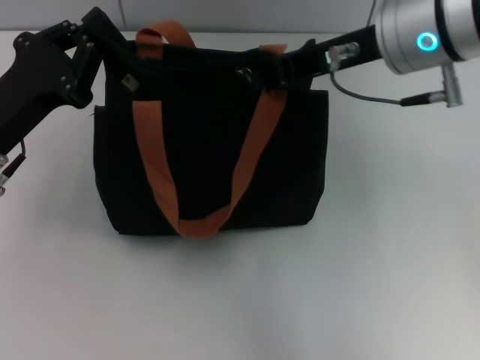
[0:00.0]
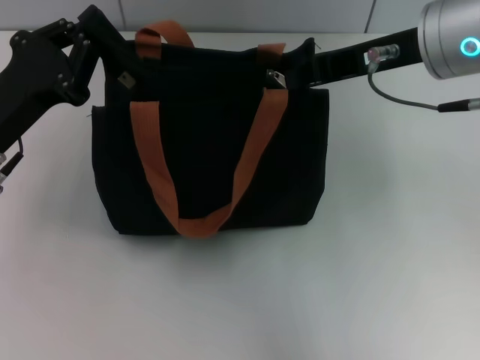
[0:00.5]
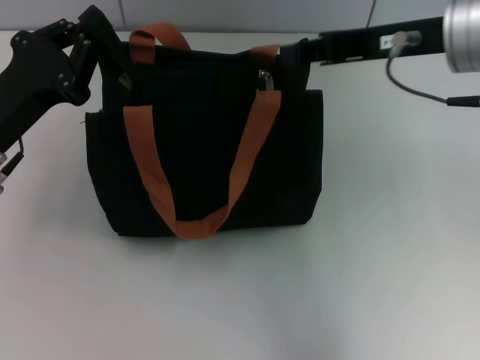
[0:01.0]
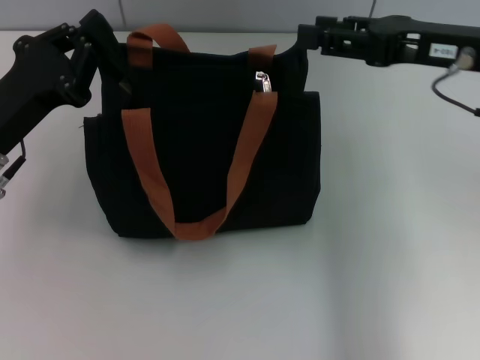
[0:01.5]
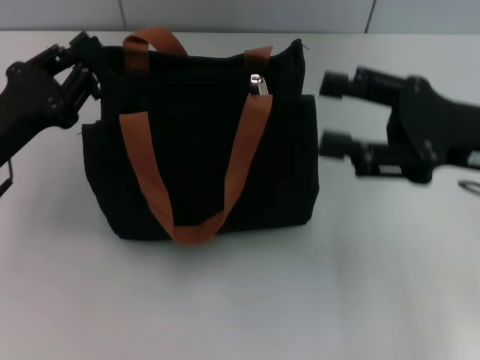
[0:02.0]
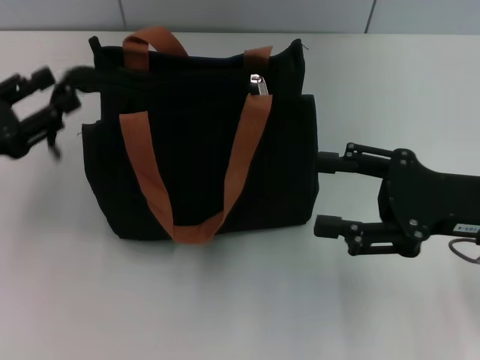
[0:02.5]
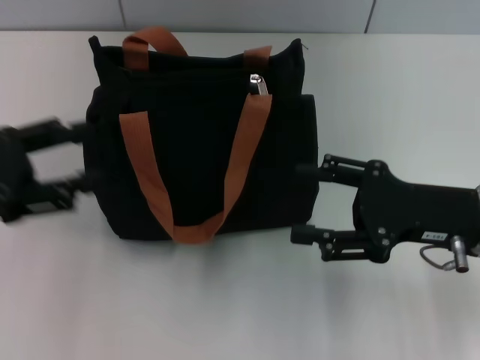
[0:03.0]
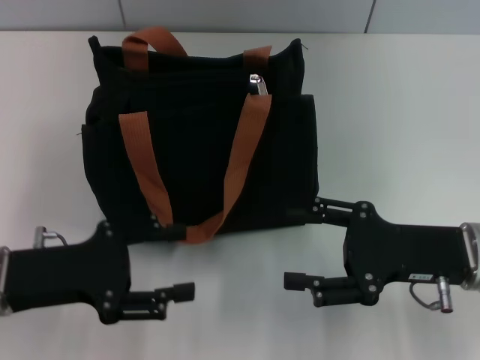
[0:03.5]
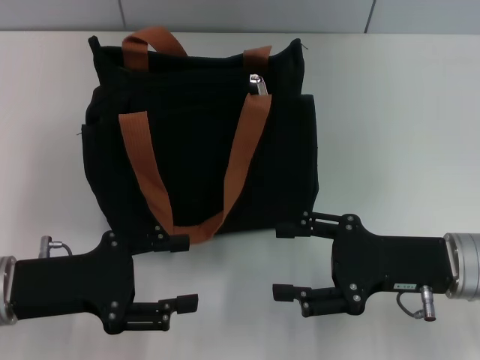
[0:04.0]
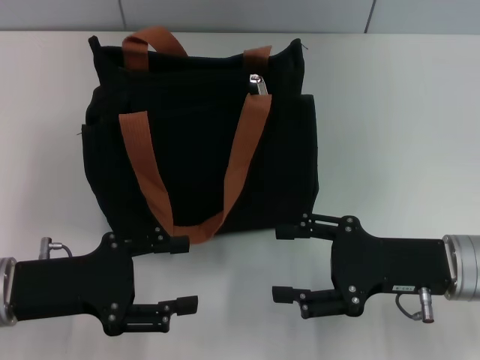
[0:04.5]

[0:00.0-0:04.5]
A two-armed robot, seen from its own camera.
Step, 0:01.5 to 0:02.5: Grab the zipper with your left hand.
0:00.0 to 0:02.0: The right gripper is displaced to the right, downward and backward by approximately 15 cm, and opens.
0:02.0 to 0:04.5: The right gripper moves downward, about 10 cm. Meanwhile the left gripper goes about 5 cm backward, and opens up.

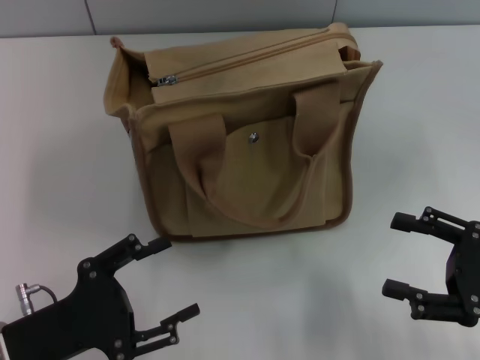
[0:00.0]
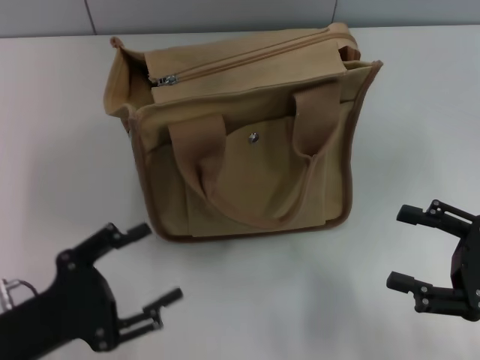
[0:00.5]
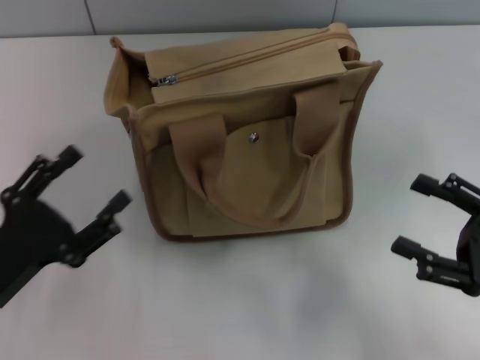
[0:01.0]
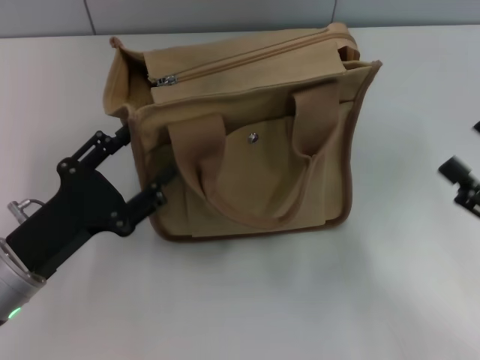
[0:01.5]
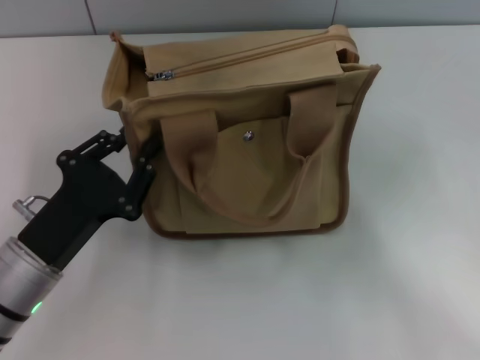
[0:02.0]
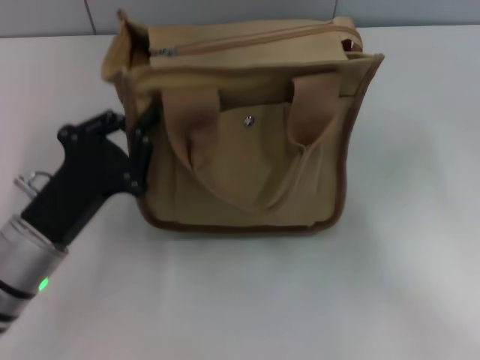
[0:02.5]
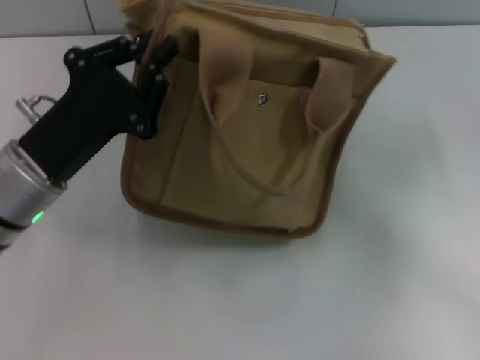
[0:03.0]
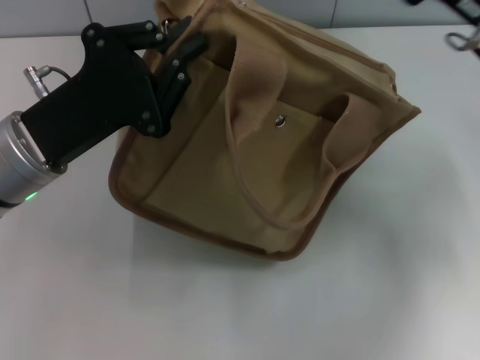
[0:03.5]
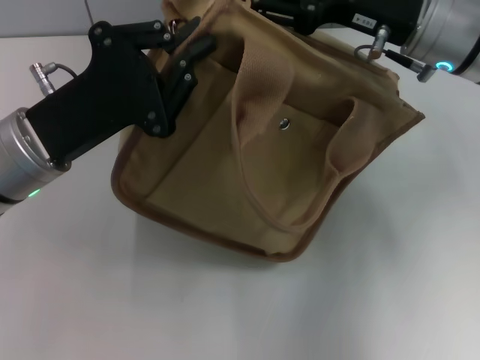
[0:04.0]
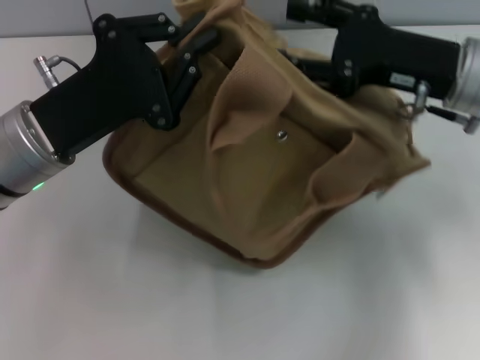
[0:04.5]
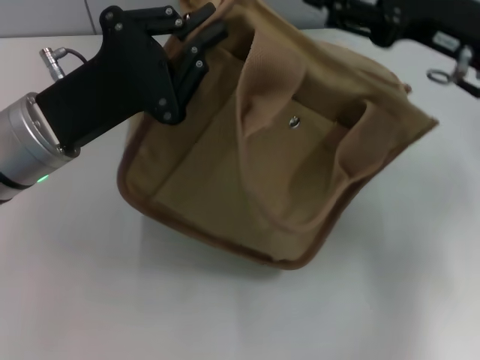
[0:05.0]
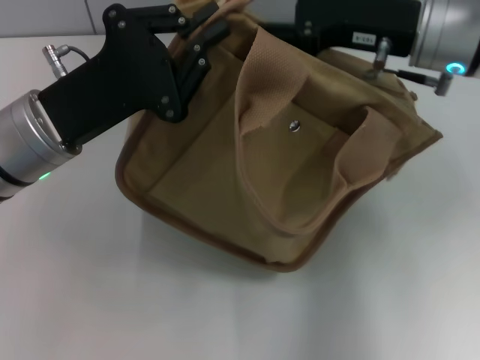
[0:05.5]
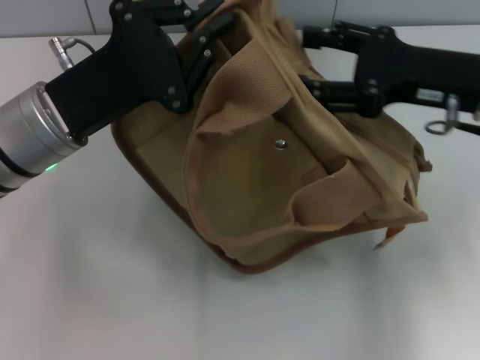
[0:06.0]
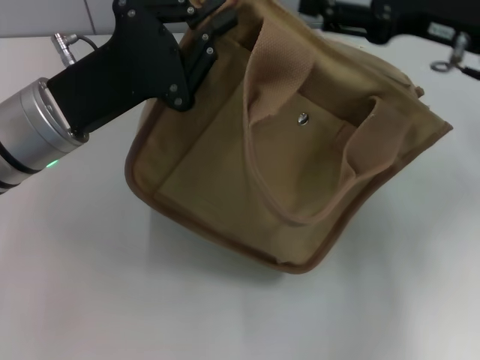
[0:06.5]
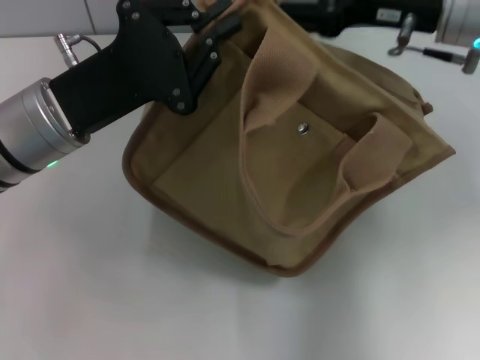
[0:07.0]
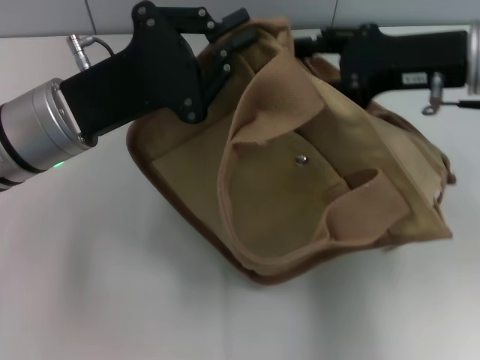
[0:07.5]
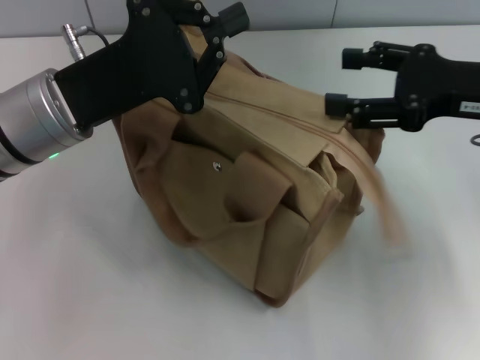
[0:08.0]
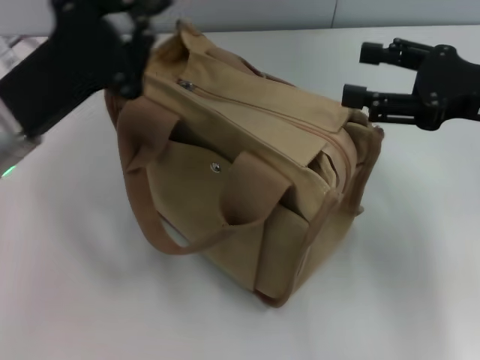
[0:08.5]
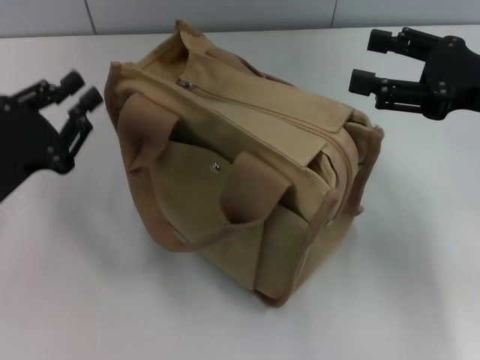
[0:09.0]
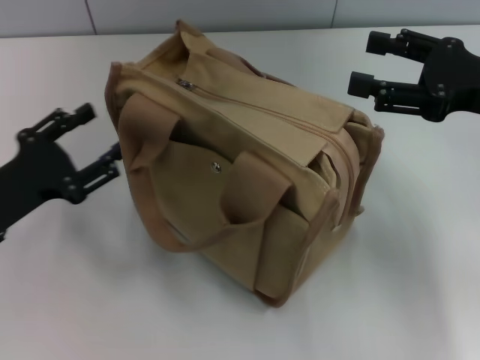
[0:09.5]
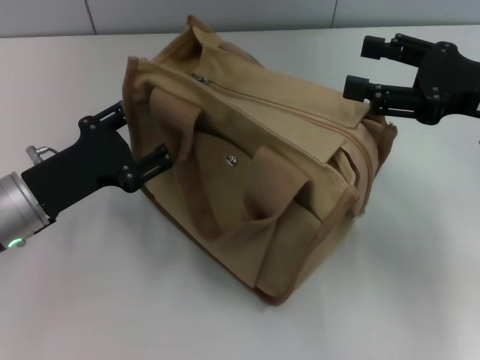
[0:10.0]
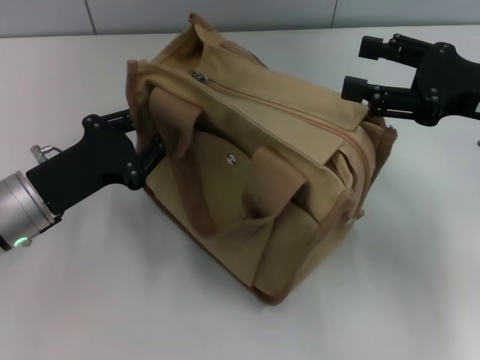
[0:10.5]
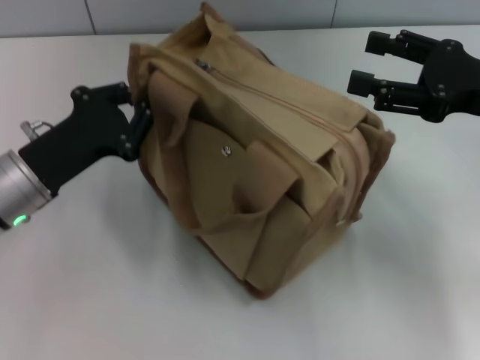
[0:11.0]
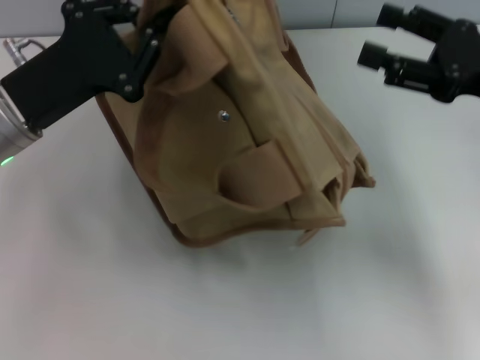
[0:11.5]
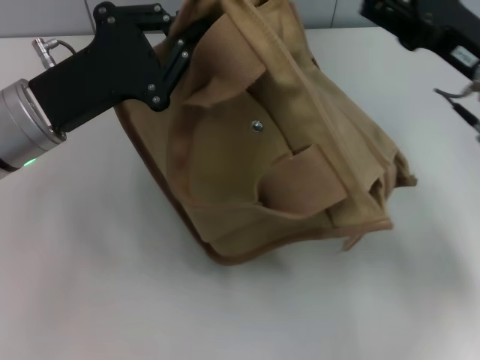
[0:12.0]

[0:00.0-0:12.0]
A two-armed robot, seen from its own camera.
0:00.0 to 0:02.0: The left gripper heads forward, covering roughly 5 cm, and closes its fingers.
0:02.0 to 0:04.0: The left gripper travels upward and forward by approximately 10 cm, and closes its fingers. The right gripper is displaced forward, to the left and upward by approximately 25 cm.
0:04.0 to 0:06.0: The right gripper moves left and right over roughly 5 cm, changing direction 2 times.
0:08.0 to 0:10.0: The left gripper is displaced downward and to the left by about 10 cm, and opens.
0:10.0 to 0:12.0: The left gripper goes some 5 cm upward, and closes its fingers.

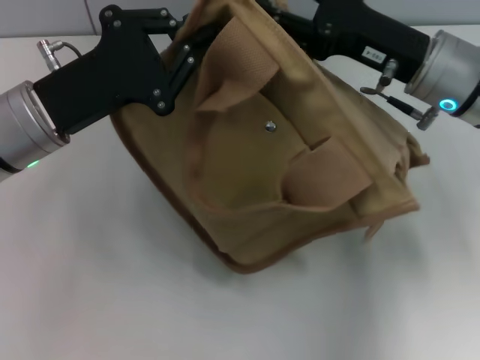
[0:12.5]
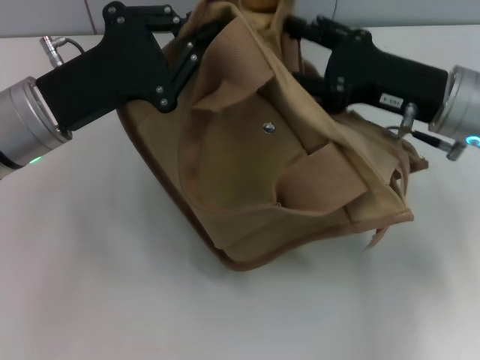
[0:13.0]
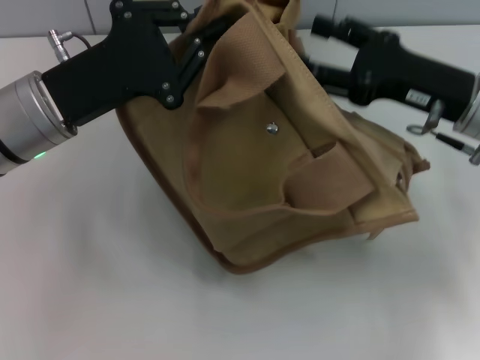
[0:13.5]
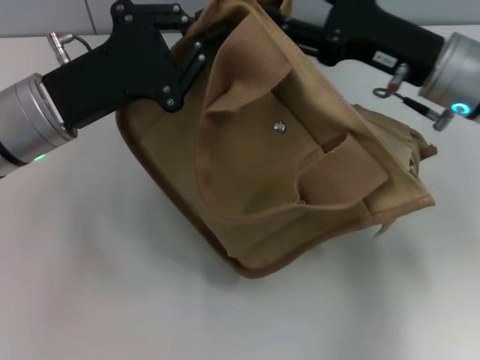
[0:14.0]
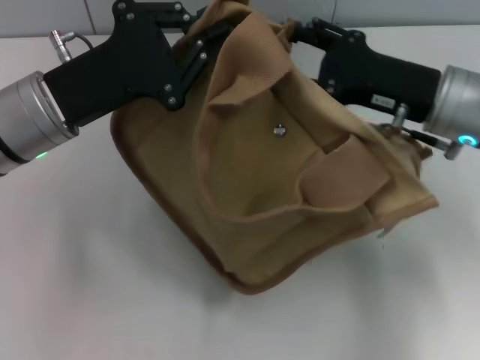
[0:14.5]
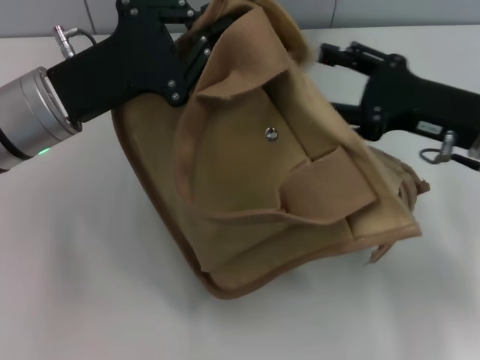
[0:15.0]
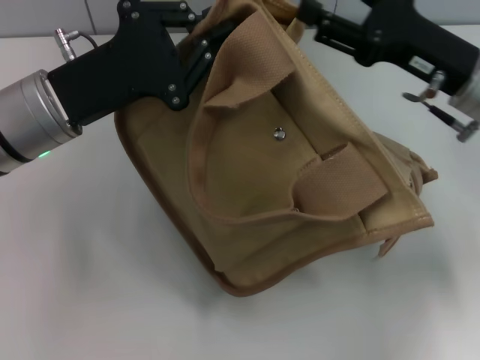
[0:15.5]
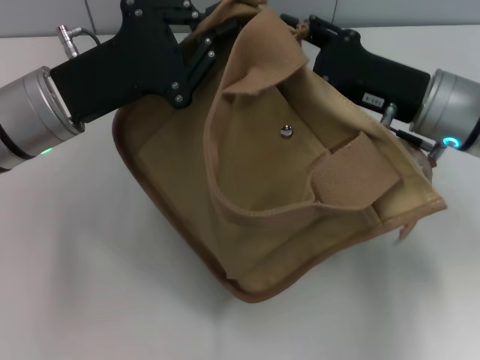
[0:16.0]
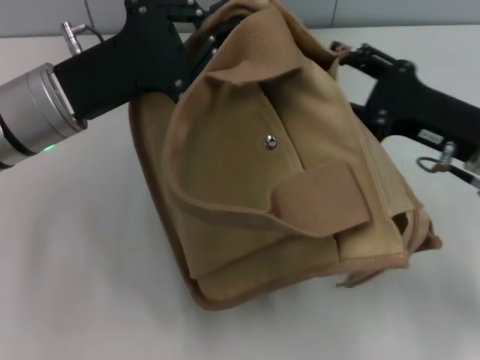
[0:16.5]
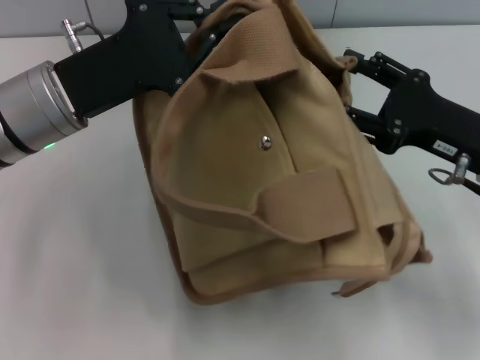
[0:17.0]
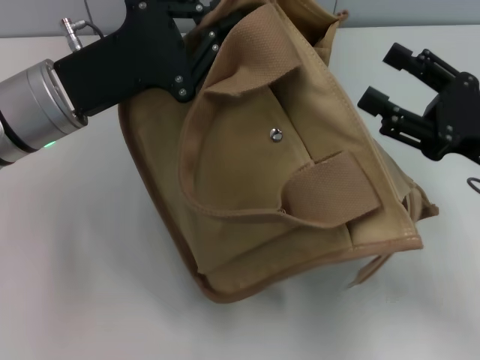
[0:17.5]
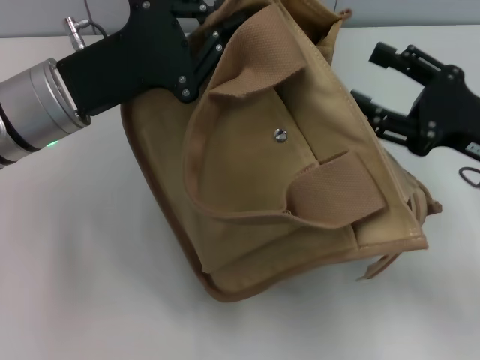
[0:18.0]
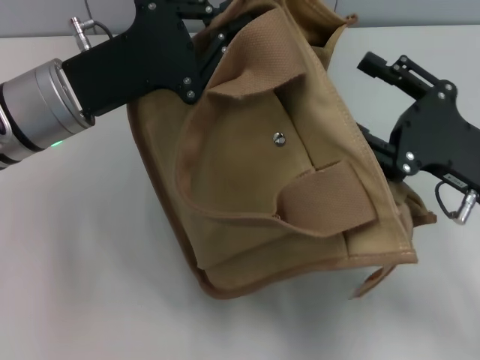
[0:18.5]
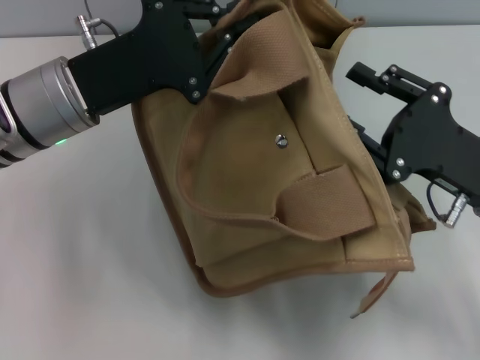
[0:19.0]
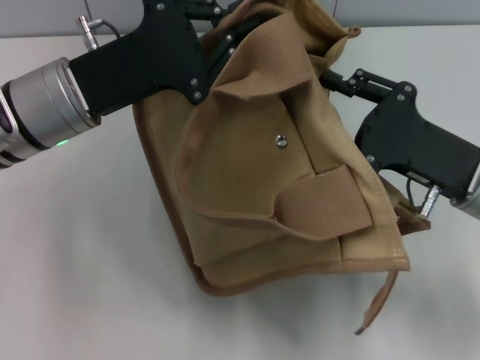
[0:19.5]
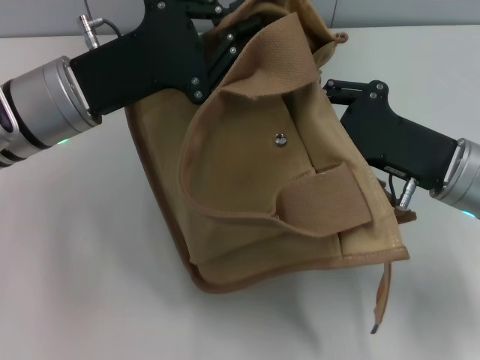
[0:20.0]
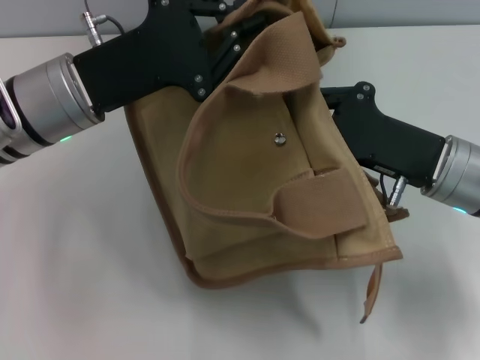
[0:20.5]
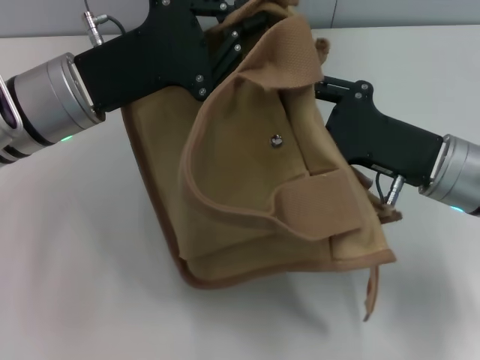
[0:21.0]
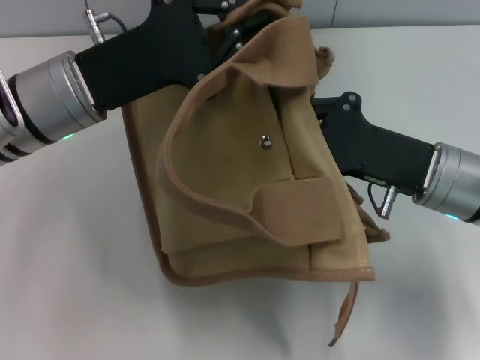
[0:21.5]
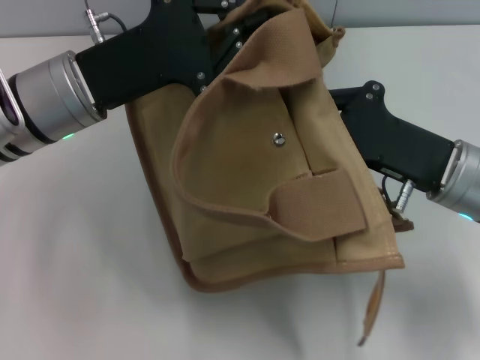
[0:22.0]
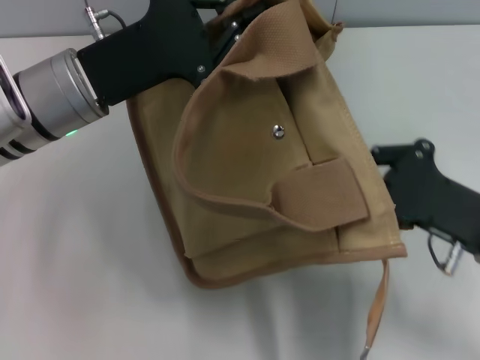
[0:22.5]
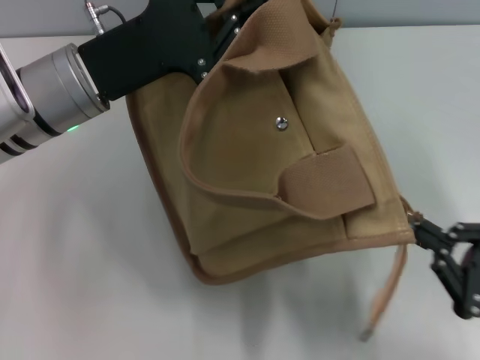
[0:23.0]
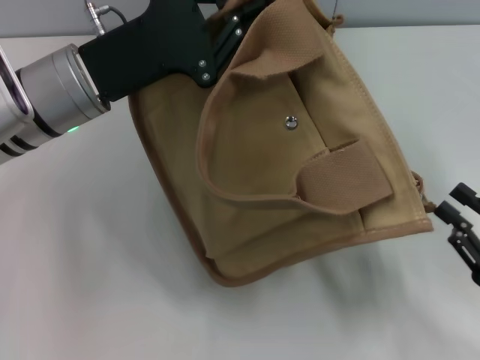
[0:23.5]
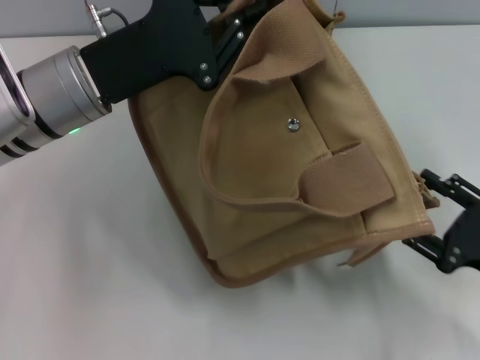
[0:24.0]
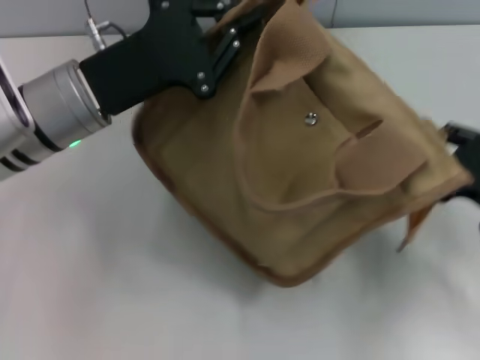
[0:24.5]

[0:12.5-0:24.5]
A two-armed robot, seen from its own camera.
0:14.5 to 0:16.5: The right gripper ends up roughly 5 cm from where it was.
0:18.5 to 0:20.5: The right gripper changes place by about 5 cm, and closes.
0:20.5 to 0:22.5: The right gripper shifts approximately 5 cm backward.
0:22.5 to 0:24.5: The right gripper moves to the right, approximately 5 cm, moves approximately 10 cm backward and comes back, and opens.
